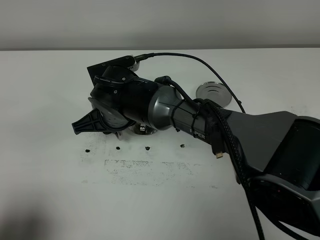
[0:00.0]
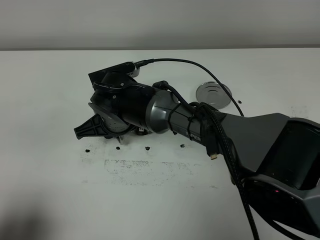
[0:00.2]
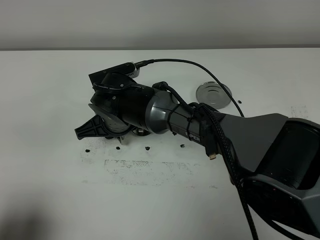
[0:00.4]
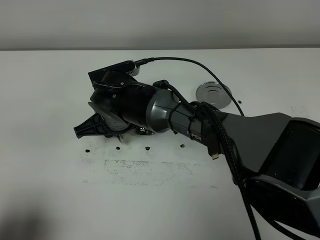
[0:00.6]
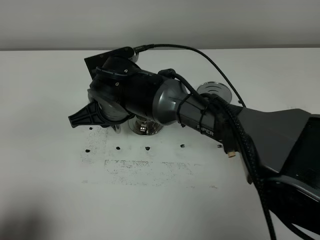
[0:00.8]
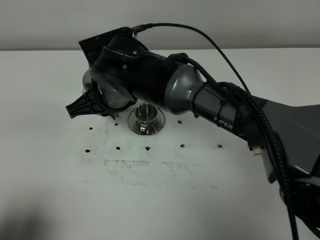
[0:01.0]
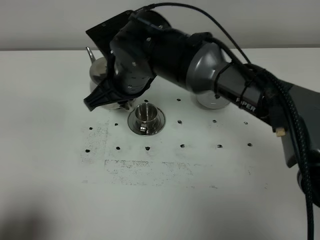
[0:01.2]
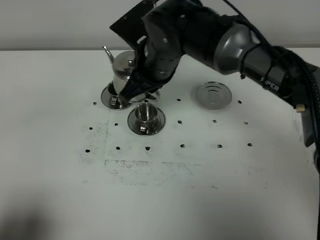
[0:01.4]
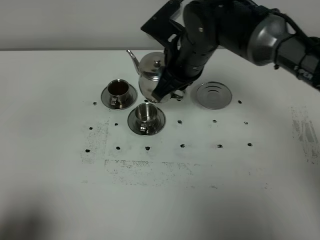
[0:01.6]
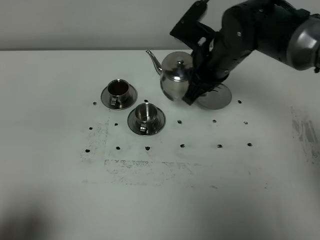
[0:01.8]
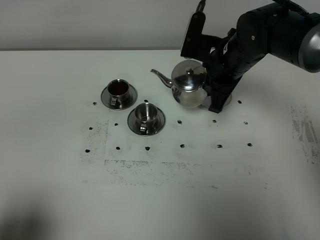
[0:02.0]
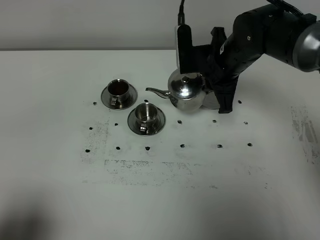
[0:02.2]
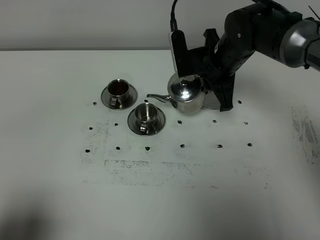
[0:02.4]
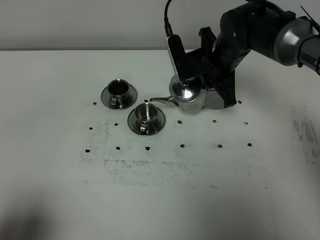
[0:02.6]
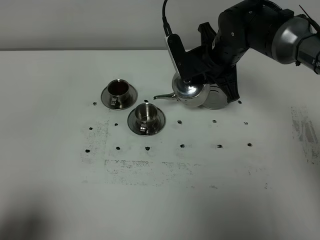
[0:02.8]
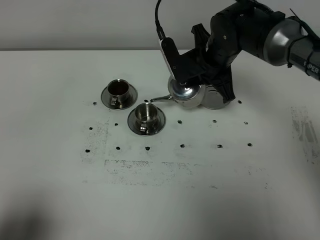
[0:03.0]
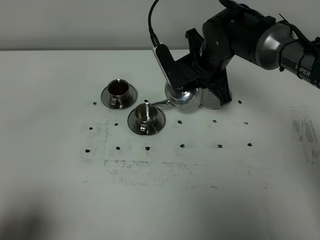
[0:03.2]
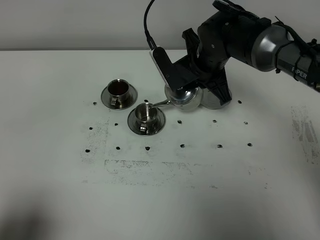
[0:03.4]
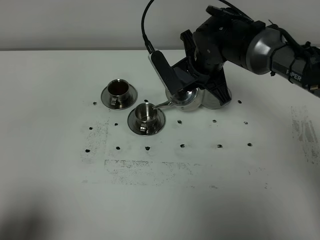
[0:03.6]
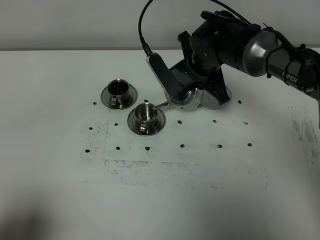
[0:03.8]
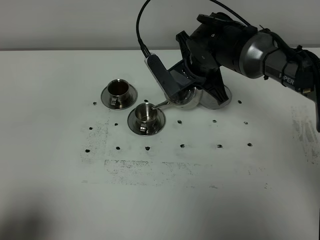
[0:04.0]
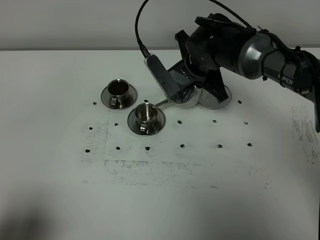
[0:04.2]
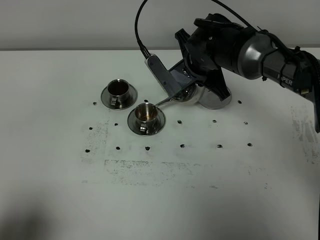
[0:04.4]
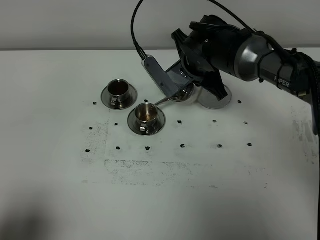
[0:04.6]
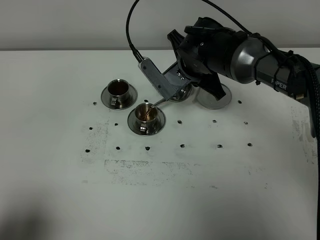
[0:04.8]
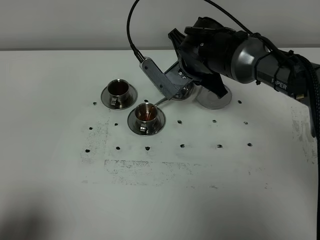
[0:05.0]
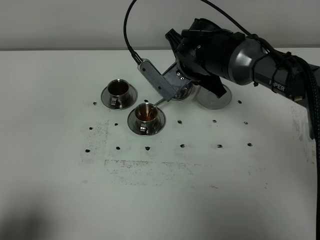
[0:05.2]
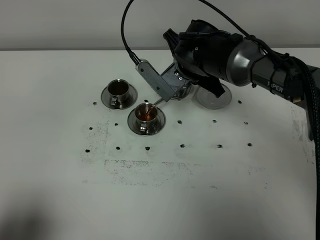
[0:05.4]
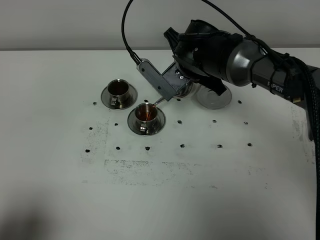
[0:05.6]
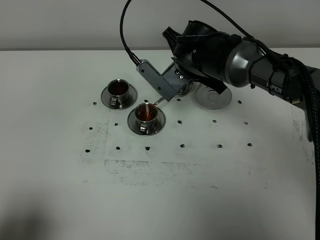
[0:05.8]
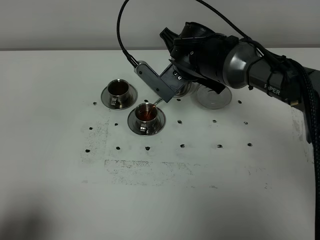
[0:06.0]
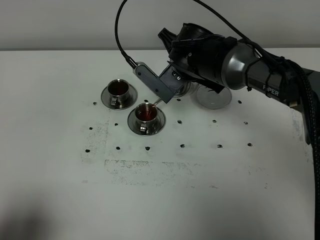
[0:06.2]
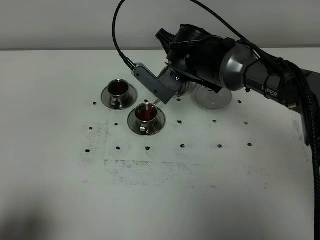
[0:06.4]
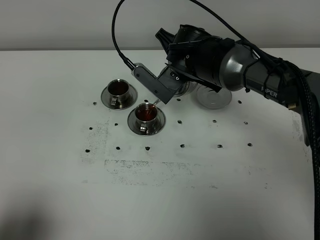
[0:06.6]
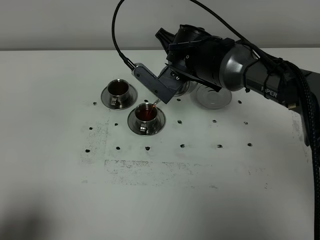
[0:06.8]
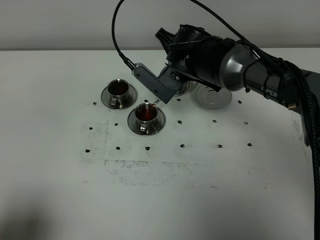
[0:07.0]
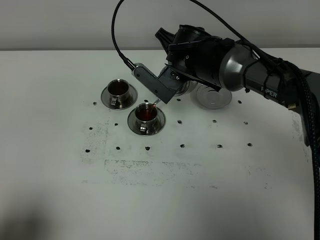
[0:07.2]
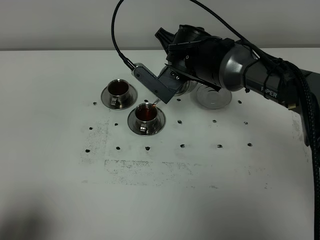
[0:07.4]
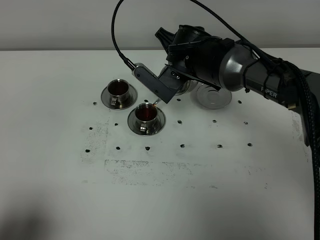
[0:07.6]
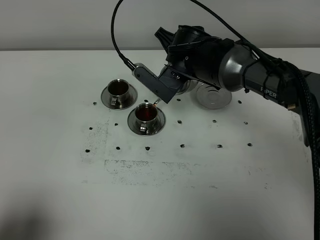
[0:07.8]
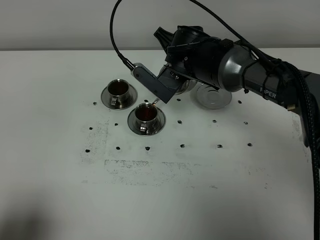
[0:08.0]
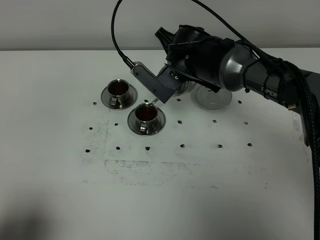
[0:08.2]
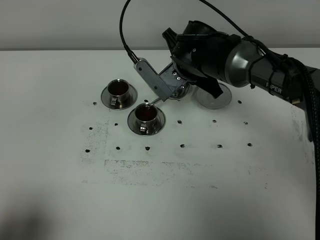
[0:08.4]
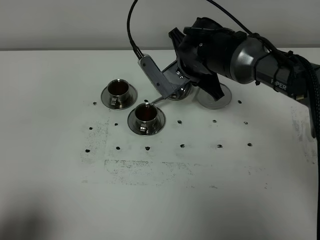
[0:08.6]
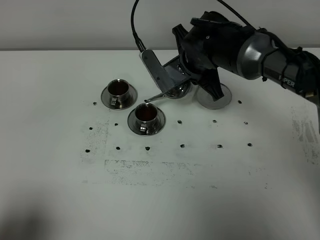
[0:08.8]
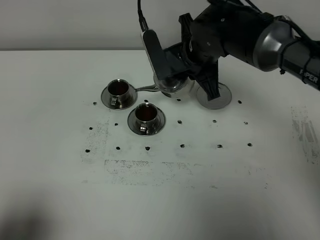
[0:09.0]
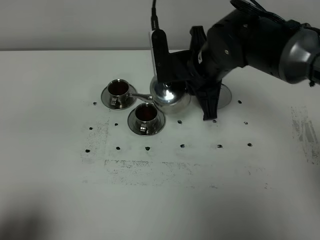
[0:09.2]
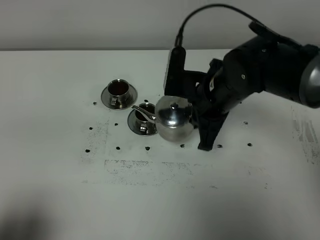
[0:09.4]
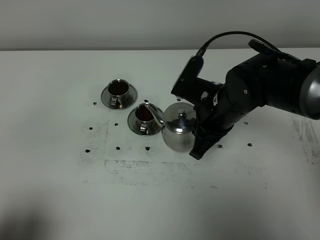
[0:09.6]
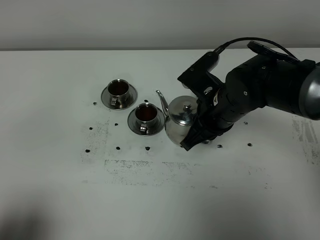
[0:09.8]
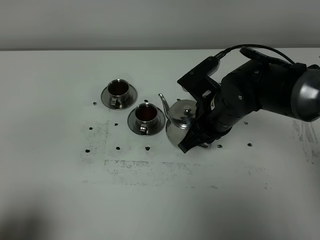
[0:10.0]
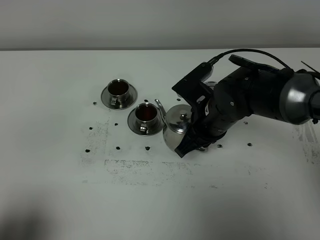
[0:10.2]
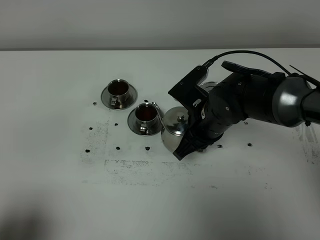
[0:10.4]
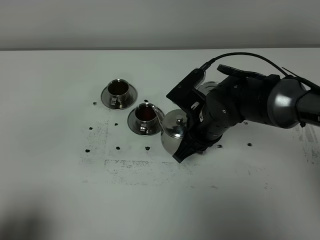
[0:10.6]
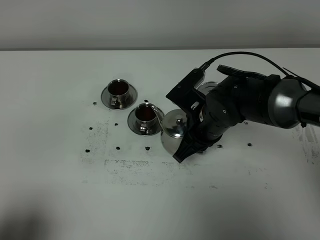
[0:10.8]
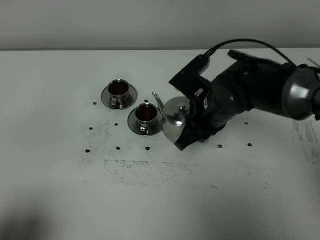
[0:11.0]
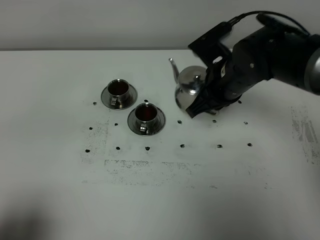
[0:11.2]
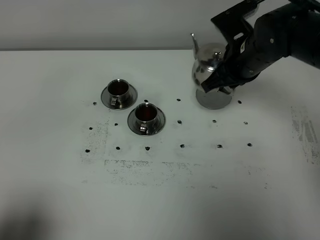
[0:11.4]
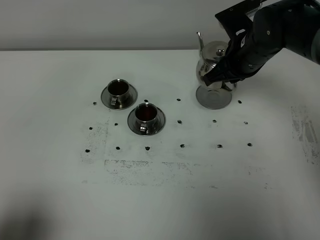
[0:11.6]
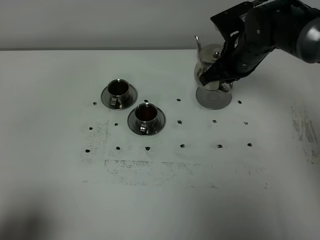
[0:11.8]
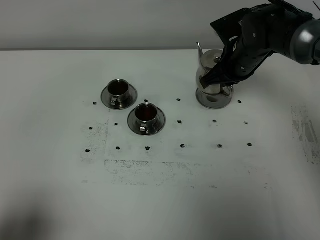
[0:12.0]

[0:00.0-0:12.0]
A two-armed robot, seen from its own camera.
Task of the whole recording: grasp the stainless steel teapot and pour the tea into the two stainless steel teacups one by one, put the stainless steel teapot back in its original place.
Step, 0:00.0 to 0:08.8: Pour tea into the teacup with the right gripper.
0:00.0 to 0:01.6: The right gripper goes approximately 15 cm to the right and upward.
0:01.6 to 0:03.0: The right gripper ends up approximately 5 cm from where it was.
0:03.0 to 0:04.4: The grippers make only small movements.
0:04.4 to 0:06.0: The grippers stay close to where they were, moving slightly.
0:06.0 to 0:07.6: Both grippers stay about where they are.
0:09.0 to 0:10.4: The right gripper goes approximately 10 cm downward and backward.
0:10.4 to 0:12.0: The right gripper shifts approximately 15 cm forward and to the right.

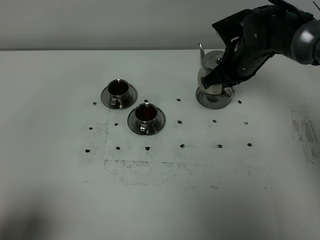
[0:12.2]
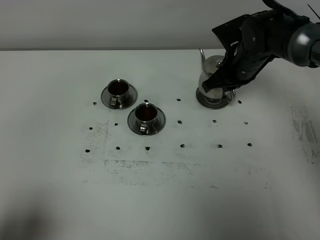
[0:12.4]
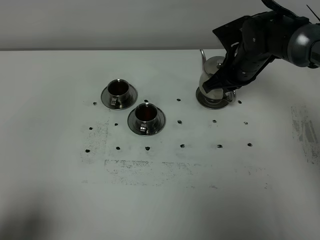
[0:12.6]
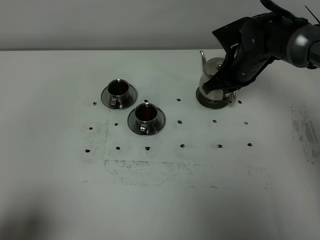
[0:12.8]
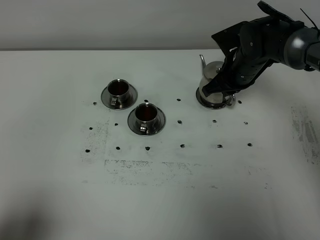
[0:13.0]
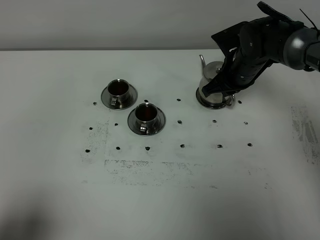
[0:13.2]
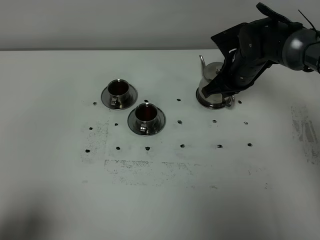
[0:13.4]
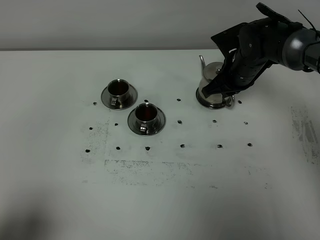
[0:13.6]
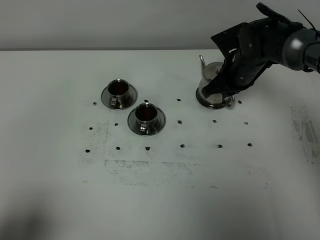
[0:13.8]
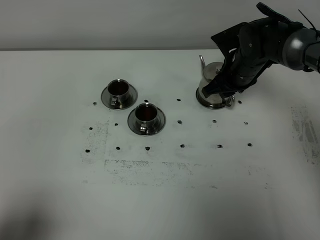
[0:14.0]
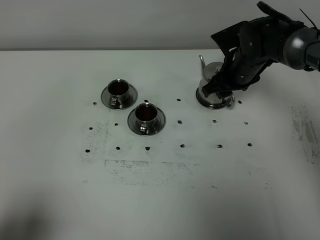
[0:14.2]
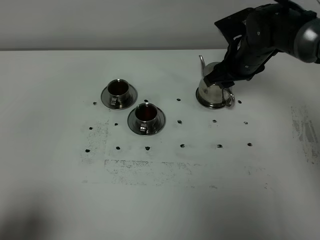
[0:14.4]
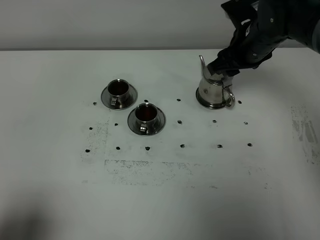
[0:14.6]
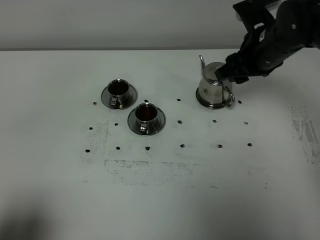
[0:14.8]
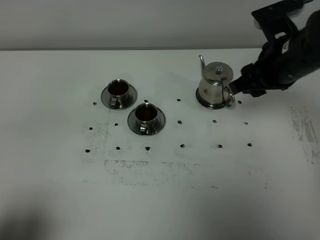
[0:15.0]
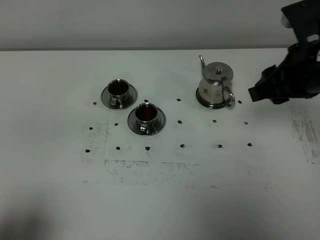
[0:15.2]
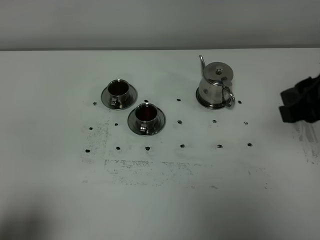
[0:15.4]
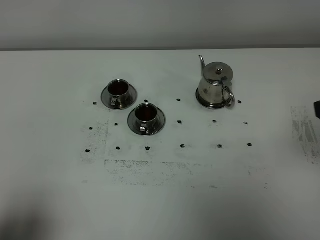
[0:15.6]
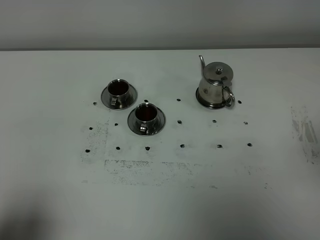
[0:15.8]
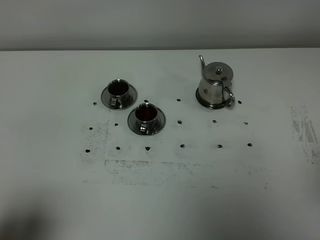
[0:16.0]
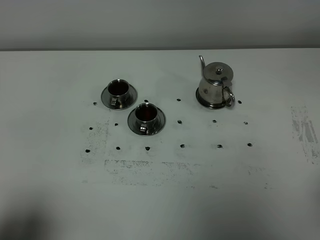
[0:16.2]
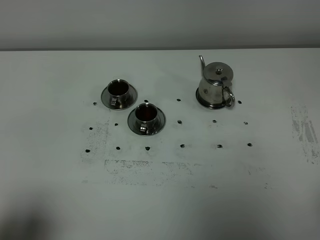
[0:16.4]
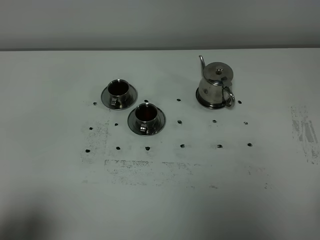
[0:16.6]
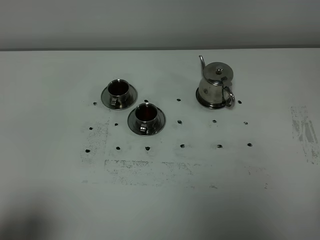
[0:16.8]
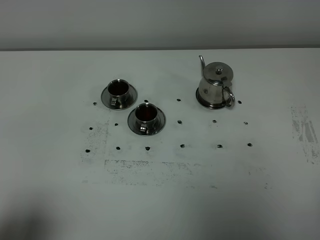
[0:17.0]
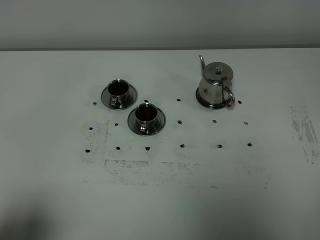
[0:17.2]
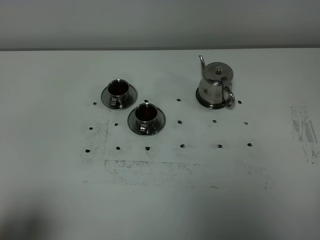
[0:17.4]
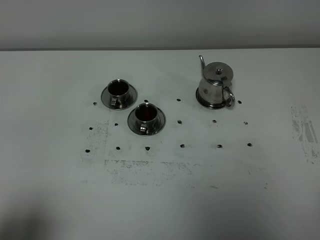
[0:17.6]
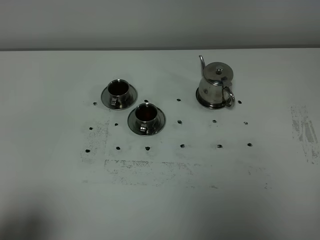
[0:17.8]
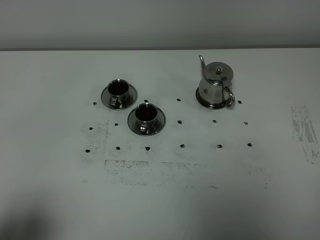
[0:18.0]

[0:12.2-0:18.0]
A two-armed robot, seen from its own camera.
Task of the whole recording: grasp the stainless steel teapot and pour the tea into the two stainless steel teacups one by one, put the stainless steel teapot back in its original place.
0:12.2 to 0:13.6: The grippers move only a little.
0:13.6 to 0:15.0: The right gripper moves backward and upward, about 15 cm, and opens its fingers.
0:15.0 to 0:16.6: The right gripper goes roughly 30 cm backward, and closes up.
